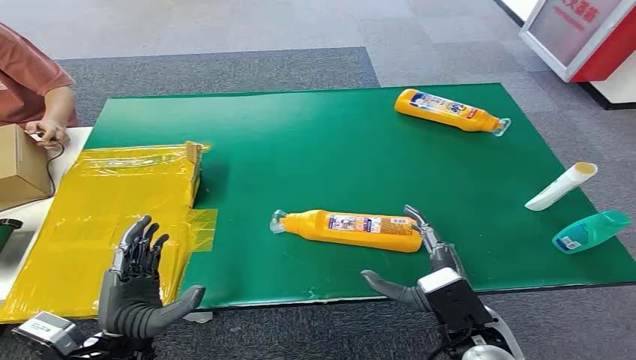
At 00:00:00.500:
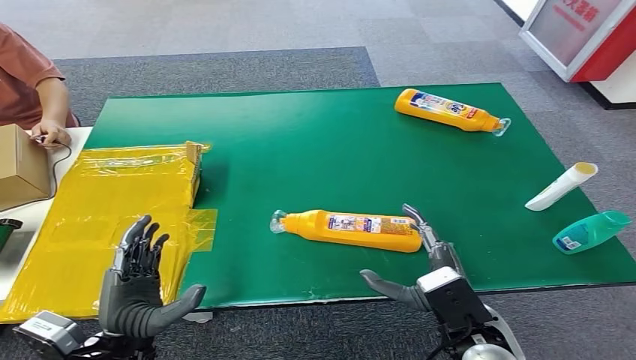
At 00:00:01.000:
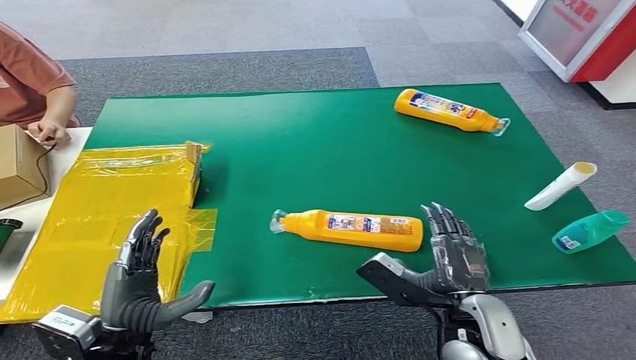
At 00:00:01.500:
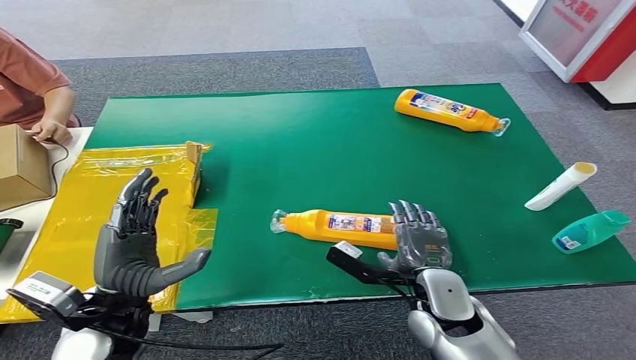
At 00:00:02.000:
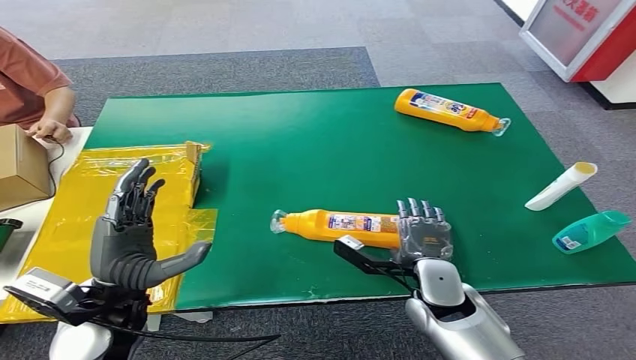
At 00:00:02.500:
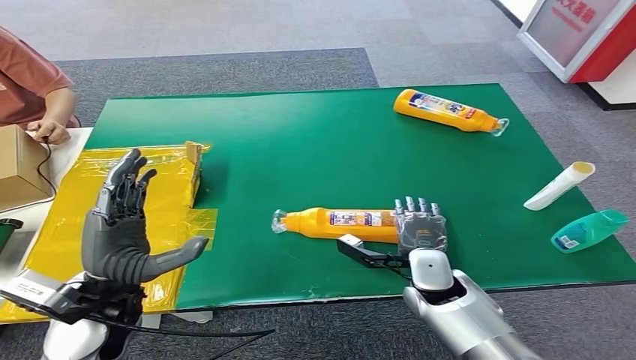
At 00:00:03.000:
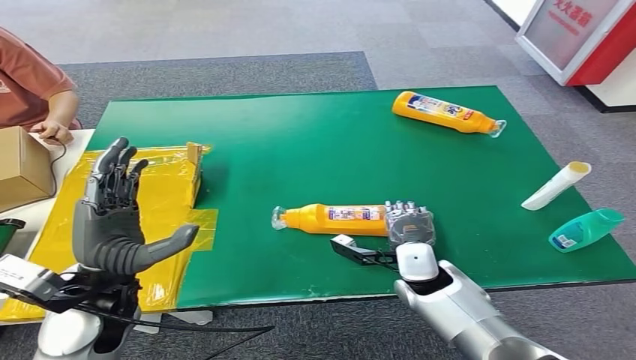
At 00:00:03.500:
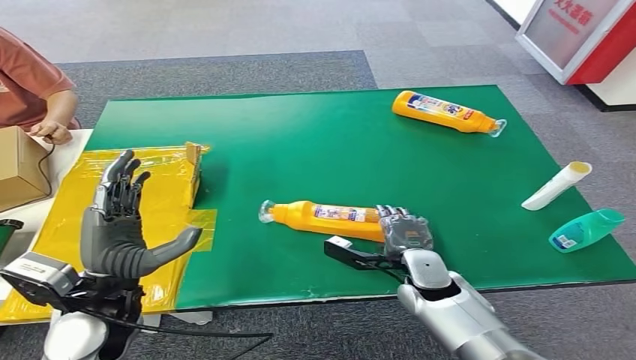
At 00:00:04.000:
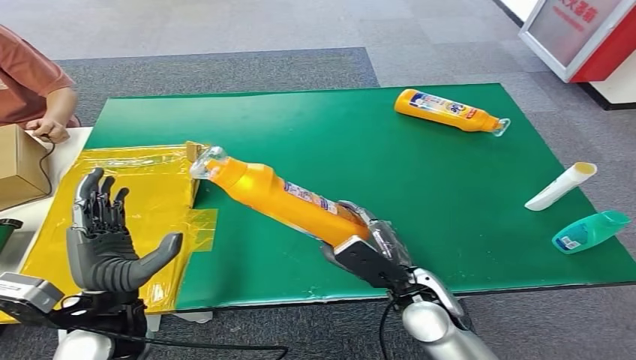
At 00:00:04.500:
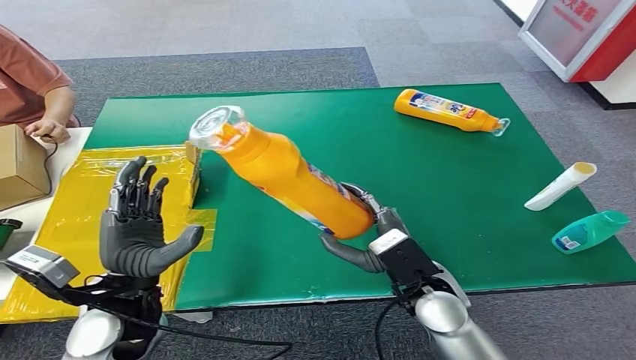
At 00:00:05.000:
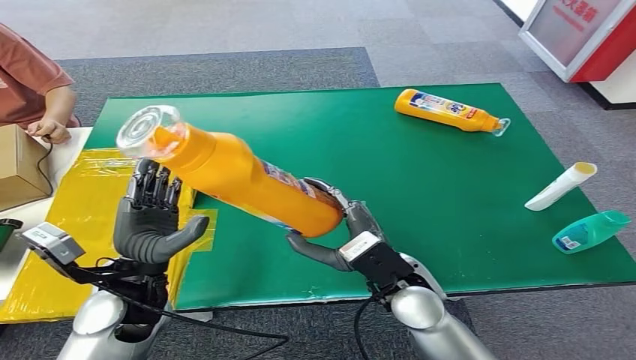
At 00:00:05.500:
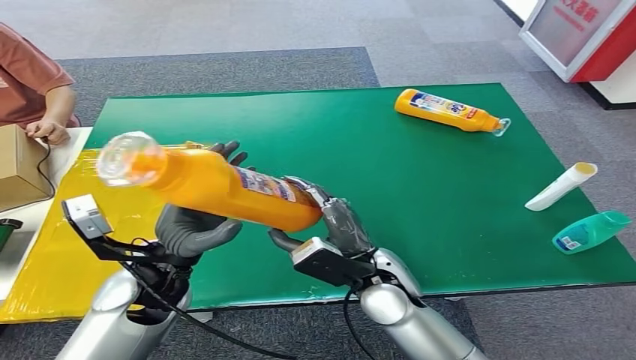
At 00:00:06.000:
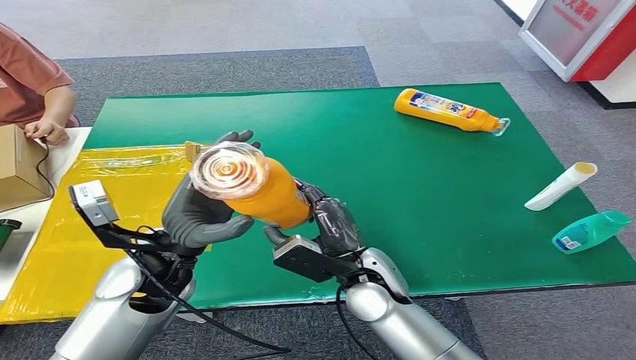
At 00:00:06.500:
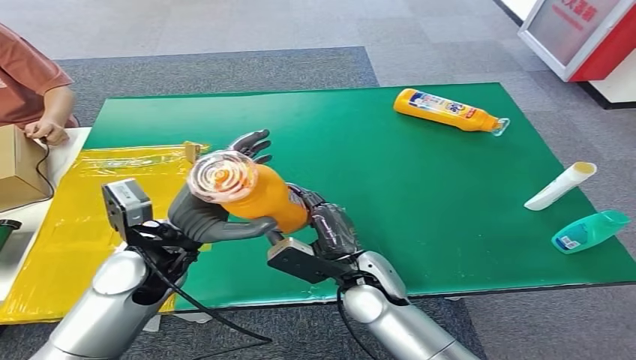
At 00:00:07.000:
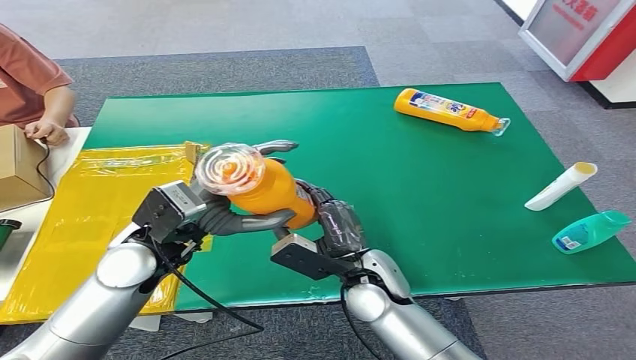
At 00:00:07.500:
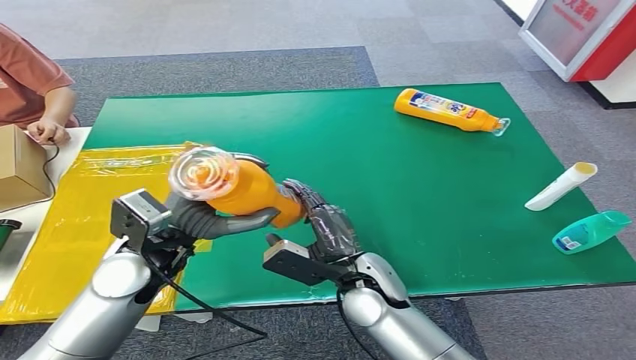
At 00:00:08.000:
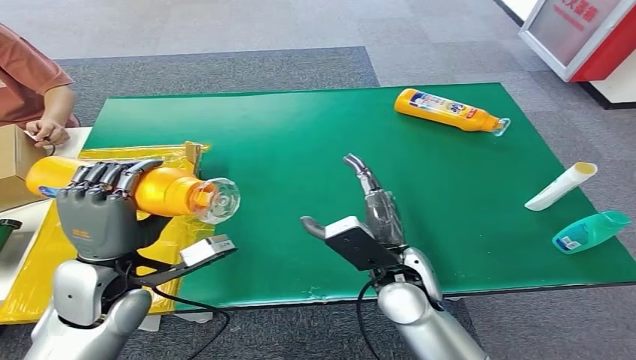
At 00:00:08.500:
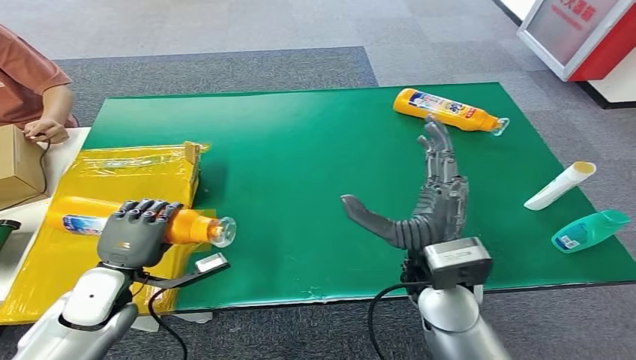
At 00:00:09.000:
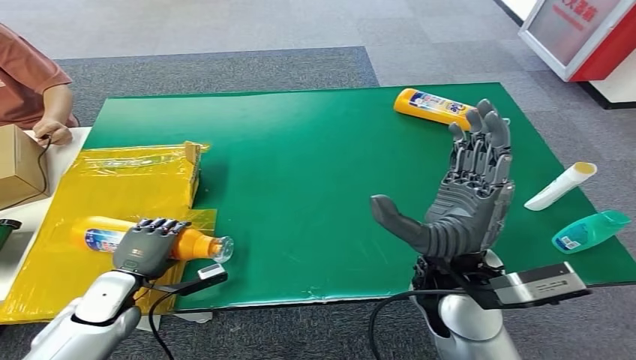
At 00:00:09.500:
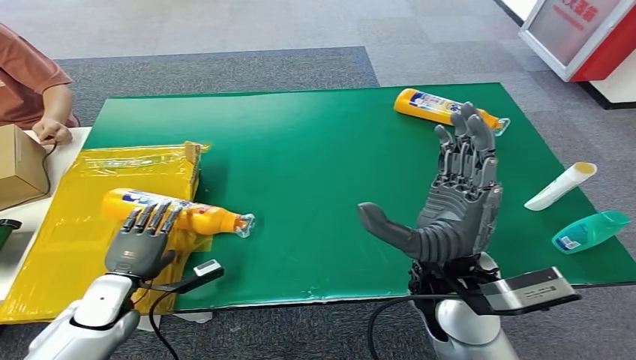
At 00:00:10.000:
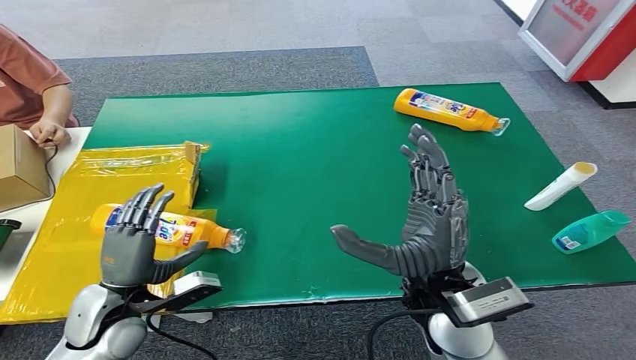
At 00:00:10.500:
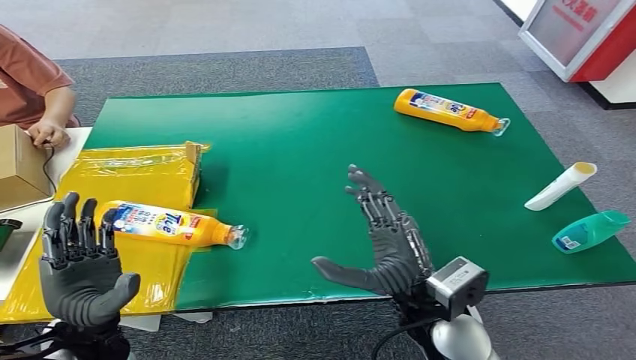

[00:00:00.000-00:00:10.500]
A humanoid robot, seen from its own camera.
Step, 00:00:00.000 to 00:00:04.000: Pick up the bottle from the table.
Step, 00:00:04.500 to 00:00:10.500: Turn the bottle to the front side.
00:00:08.500 to 00:00:10.500: The left hand heads backward, covering roughly 10 cm. The right hand moves roughly 5 cm.
